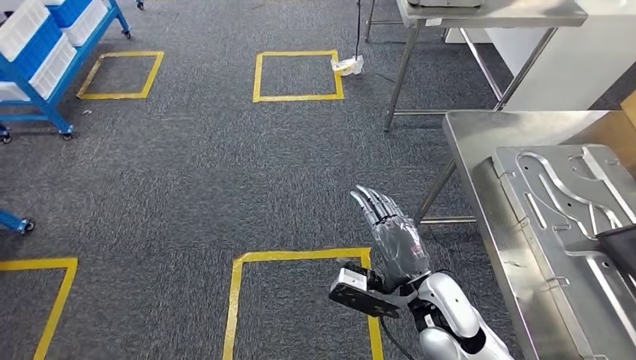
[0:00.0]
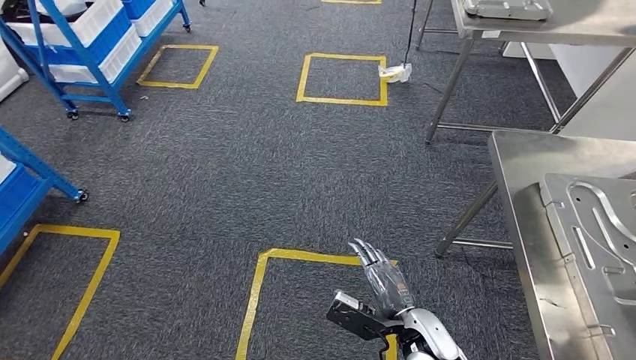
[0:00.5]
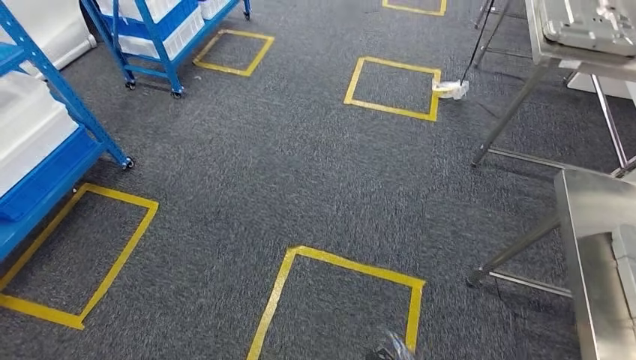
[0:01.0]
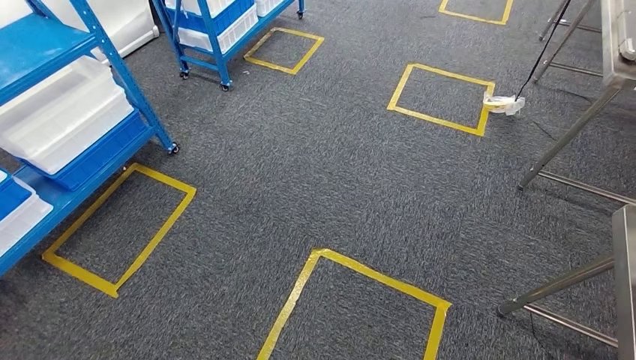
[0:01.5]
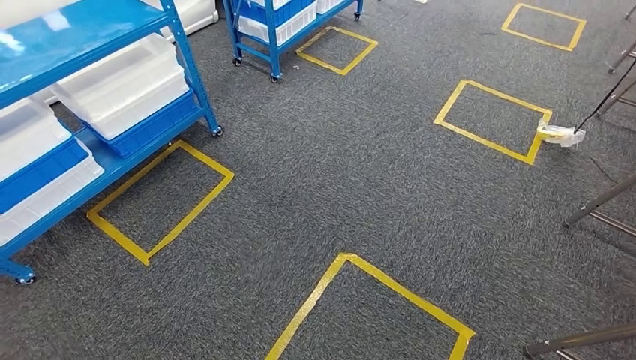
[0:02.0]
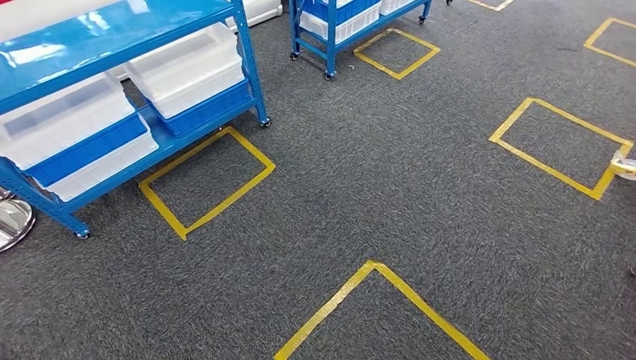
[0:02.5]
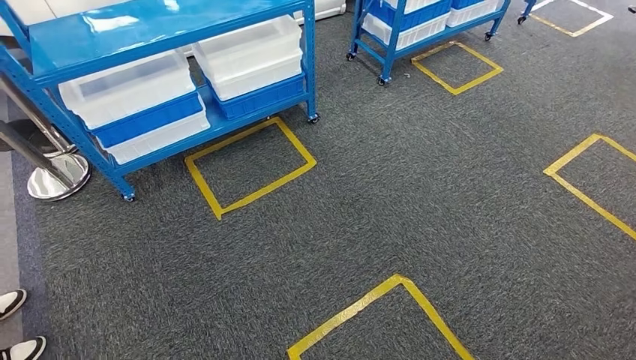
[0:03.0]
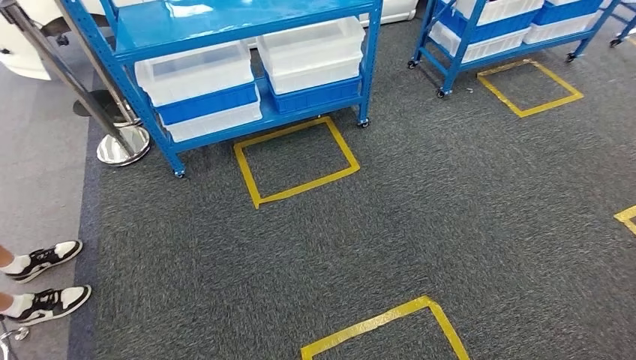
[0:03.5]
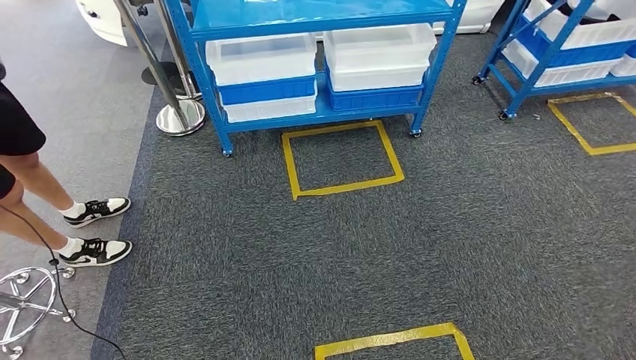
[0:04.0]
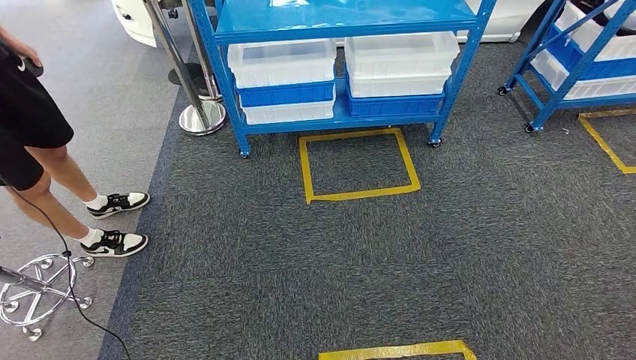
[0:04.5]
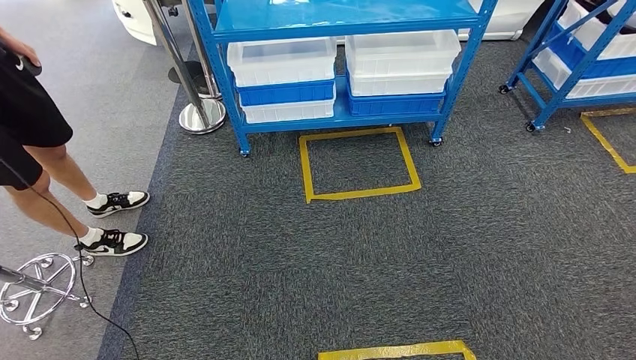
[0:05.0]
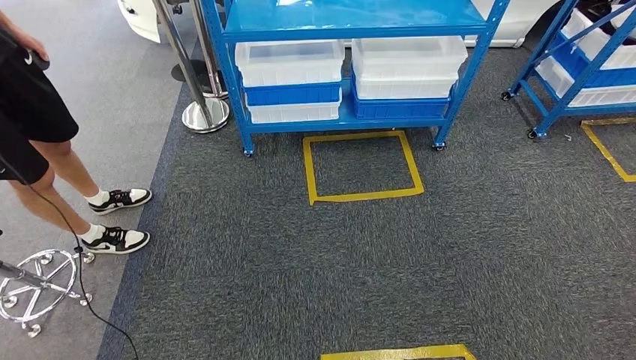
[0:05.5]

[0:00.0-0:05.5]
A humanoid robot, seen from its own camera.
Step, 0:02.0 to 0:05.5: Move to the initial position of the shelf.
